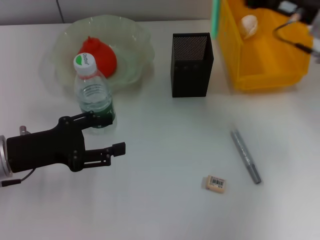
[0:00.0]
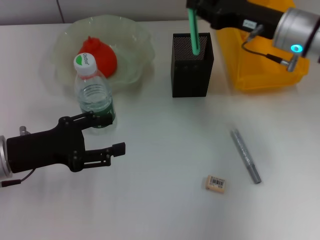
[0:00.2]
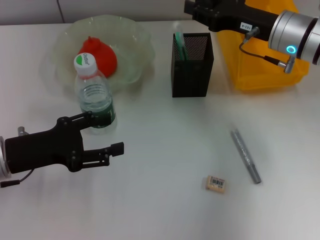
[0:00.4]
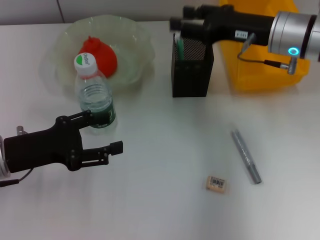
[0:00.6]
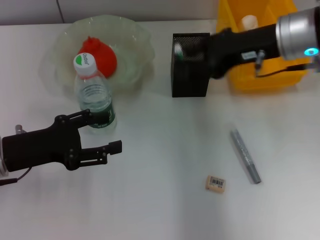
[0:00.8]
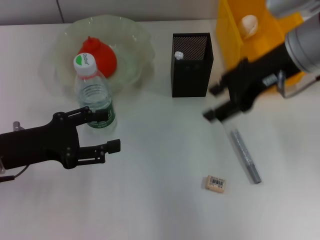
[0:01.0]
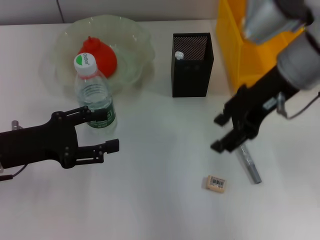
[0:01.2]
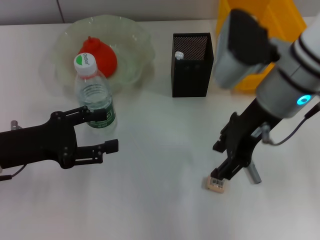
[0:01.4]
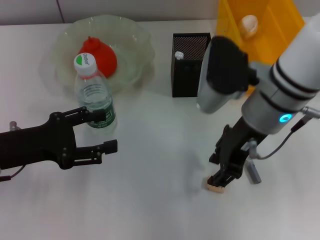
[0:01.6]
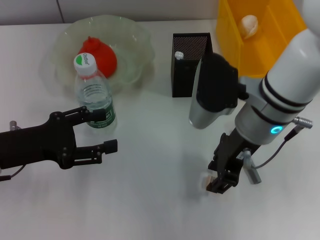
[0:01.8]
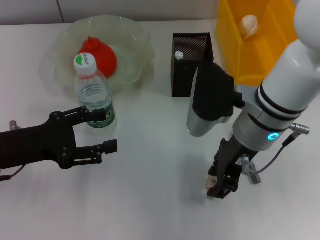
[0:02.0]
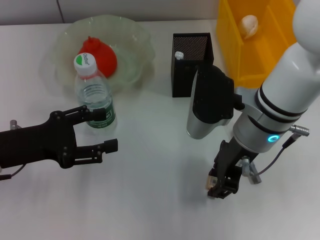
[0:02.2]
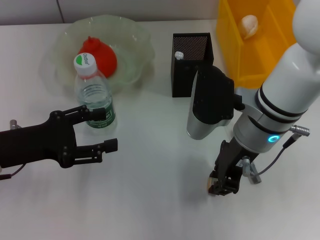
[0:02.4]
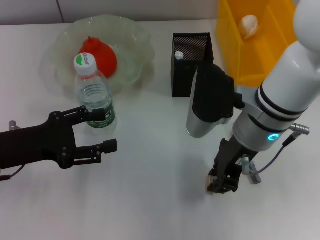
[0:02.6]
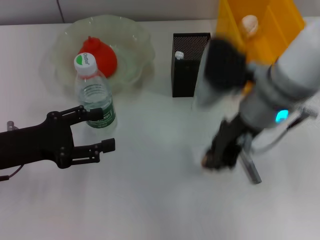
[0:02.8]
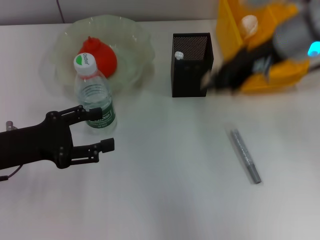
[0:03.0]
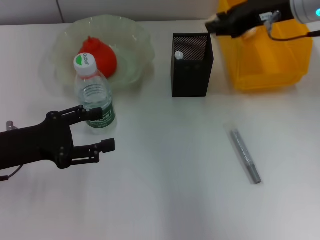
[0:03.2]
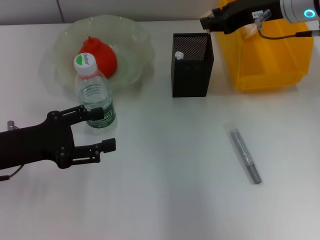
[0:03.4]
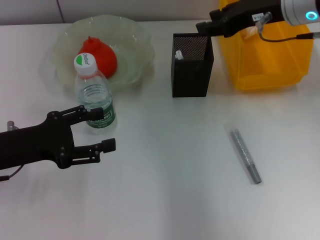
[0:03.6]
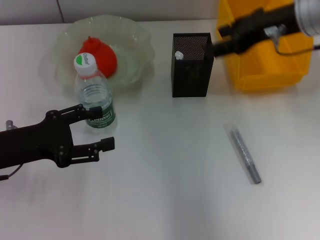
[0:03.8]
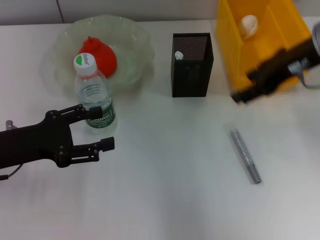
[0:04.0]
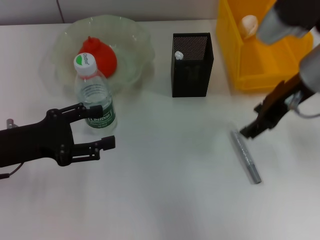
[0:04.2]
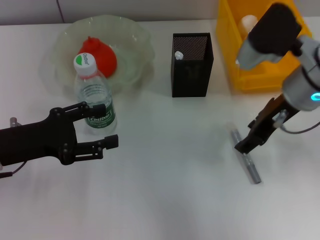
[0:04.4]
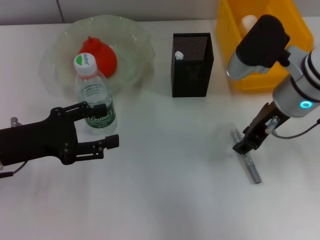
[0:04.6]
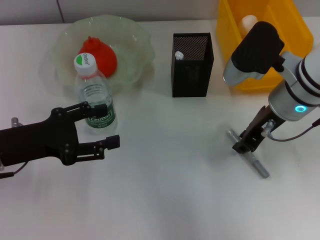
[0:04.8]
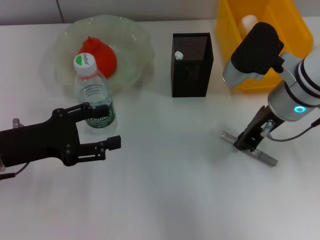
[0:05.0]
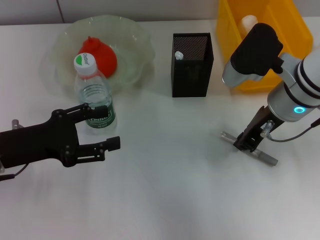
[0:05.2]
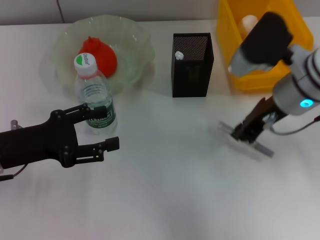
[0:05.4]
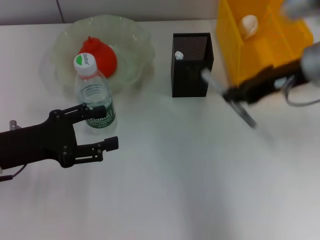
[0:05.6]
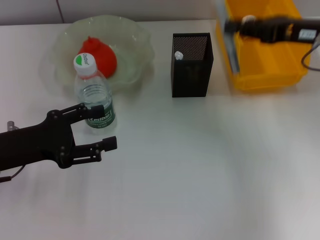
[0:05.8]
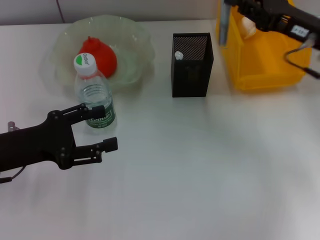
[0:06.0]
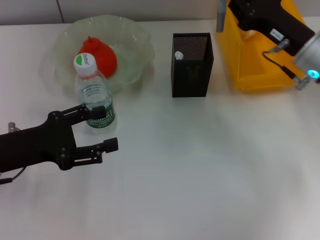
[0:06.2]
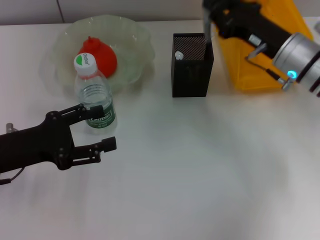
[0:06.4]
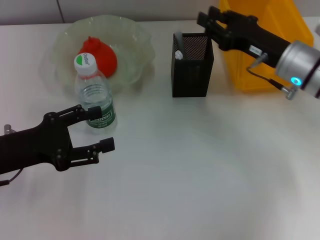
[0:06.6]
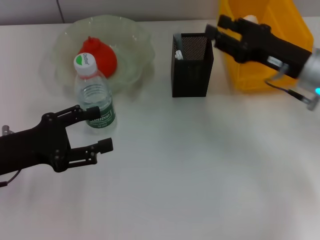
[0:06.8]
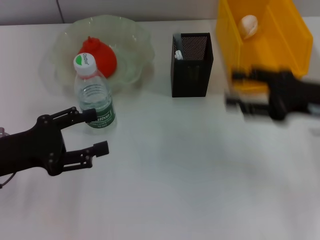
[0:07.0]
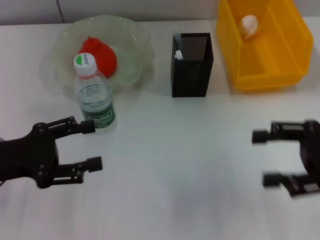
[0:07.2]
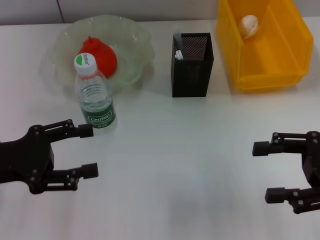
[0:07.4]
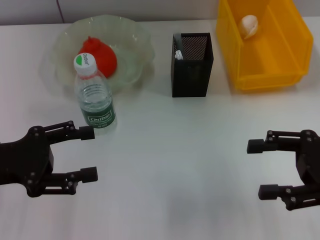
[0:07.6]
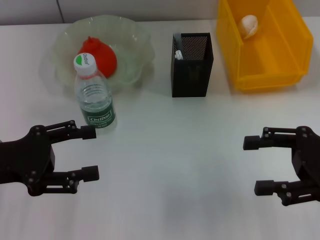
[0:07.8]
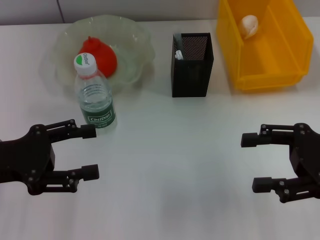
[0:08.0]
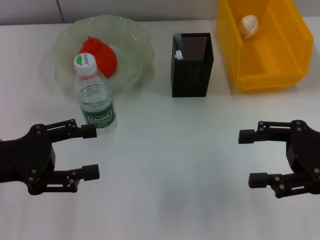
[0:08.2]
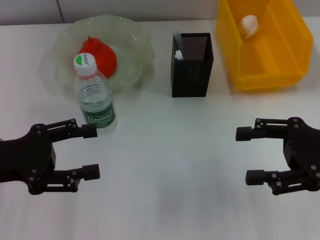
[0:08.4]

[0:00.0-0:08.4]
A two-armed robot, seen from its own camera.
Step, 0:00.6 to 0:02.0: Grab the eraser with the right hand.
Step, 0:02.4 to 0:03.4: Put the eraser into the pen holder with the right hand.
Step, 0:03.6 to 0:05.0: Grab the gray glue with the right hand.
Step, 0:05.2 to 0:06.4: Place the gray glue into the pen holder with the right hand.
0:00.0 to 0:01.4: The right gripper goes approximately 10 cm to the left and backward, and opens its fingers.
0:01.4 to 0:02.8: The right gripper closes up.
0:02.8 to 0:04.2: The right gripper moves to the right, approximately 5 cm, moves some 10 cm forward and comes back, and opens up.
0:04.2 to 0:05.6: The right gripper closes.
0:05.6 to 0:07.0: The right gripper is displaced to the right, downward and backward by about 10 cm, and opens its fingers.
0:07.0 to 0:08.4: The grippers move only a little.

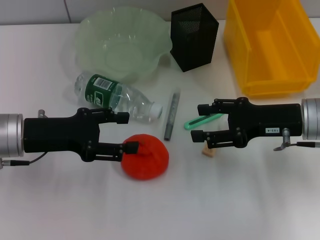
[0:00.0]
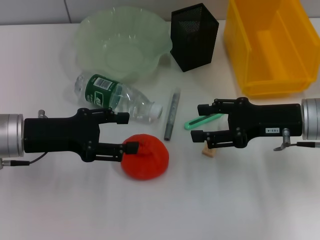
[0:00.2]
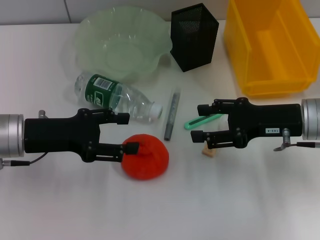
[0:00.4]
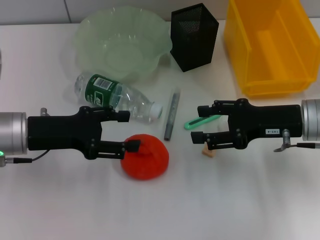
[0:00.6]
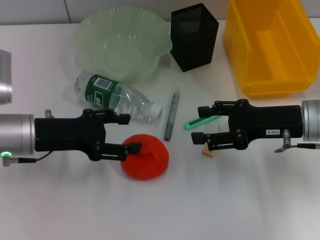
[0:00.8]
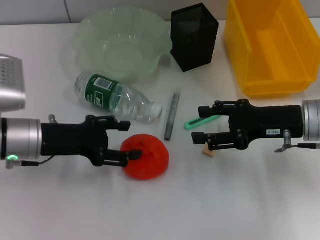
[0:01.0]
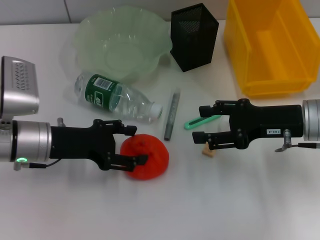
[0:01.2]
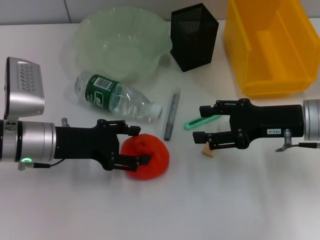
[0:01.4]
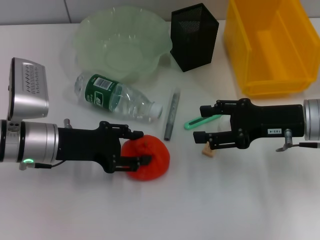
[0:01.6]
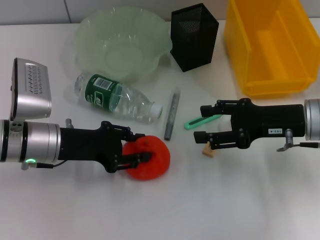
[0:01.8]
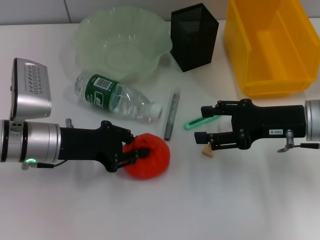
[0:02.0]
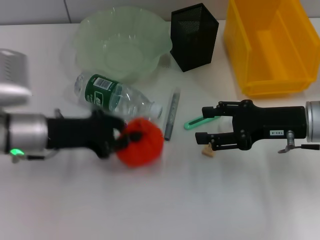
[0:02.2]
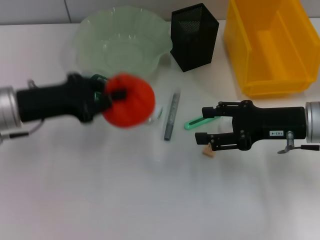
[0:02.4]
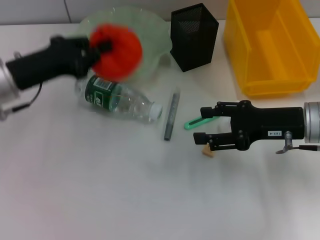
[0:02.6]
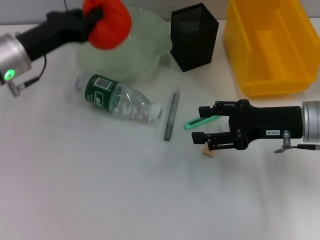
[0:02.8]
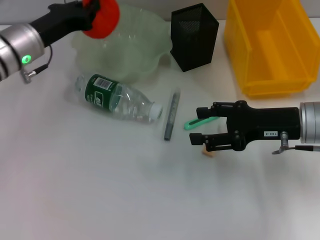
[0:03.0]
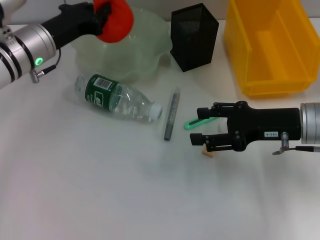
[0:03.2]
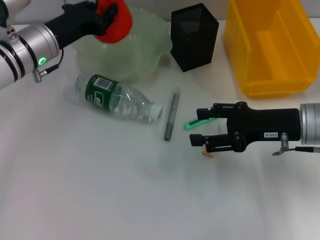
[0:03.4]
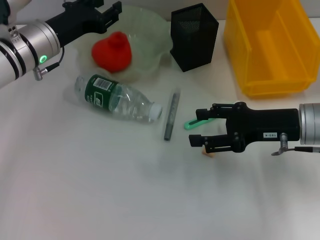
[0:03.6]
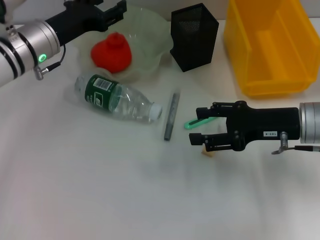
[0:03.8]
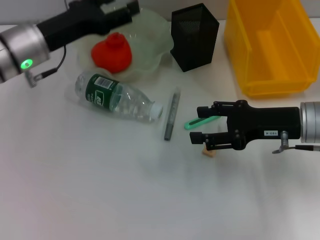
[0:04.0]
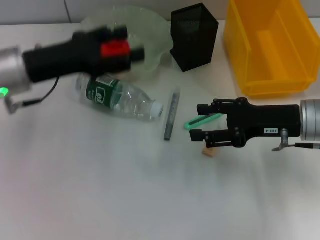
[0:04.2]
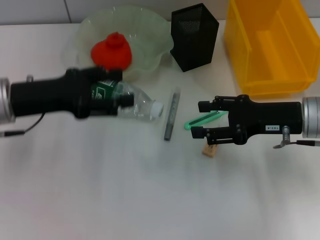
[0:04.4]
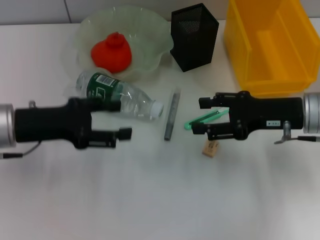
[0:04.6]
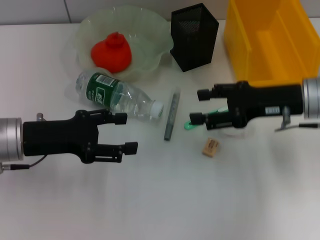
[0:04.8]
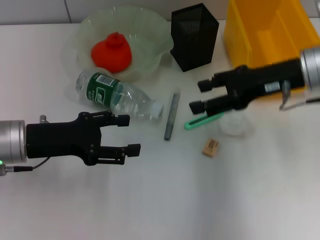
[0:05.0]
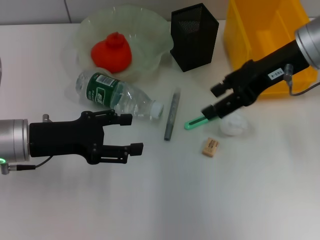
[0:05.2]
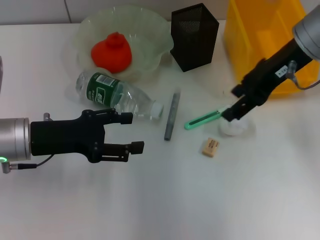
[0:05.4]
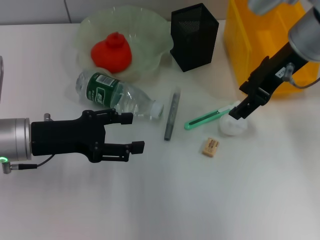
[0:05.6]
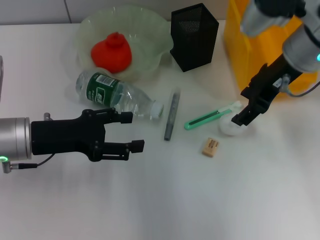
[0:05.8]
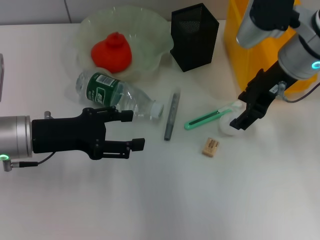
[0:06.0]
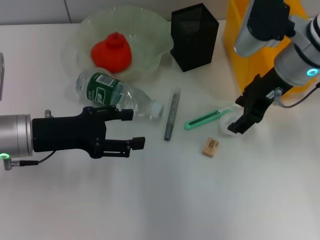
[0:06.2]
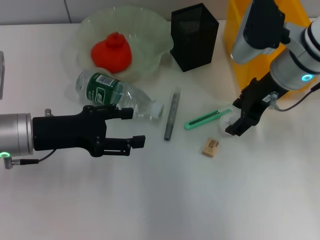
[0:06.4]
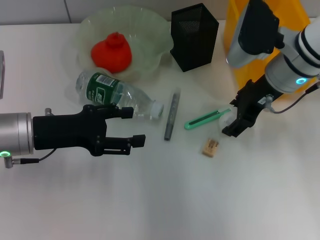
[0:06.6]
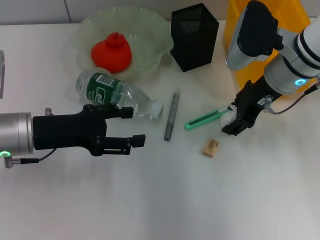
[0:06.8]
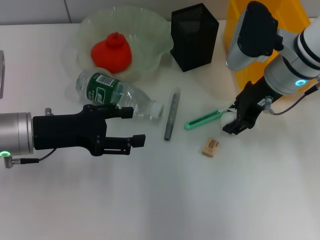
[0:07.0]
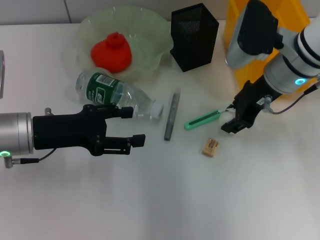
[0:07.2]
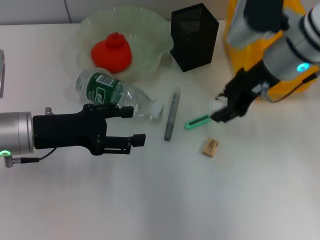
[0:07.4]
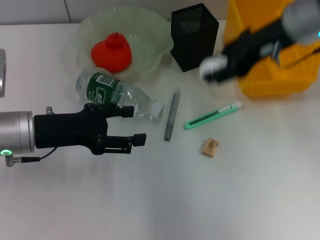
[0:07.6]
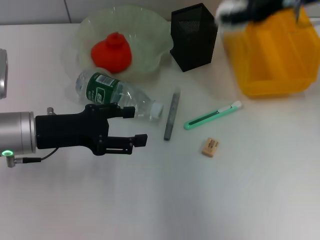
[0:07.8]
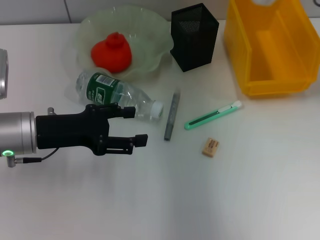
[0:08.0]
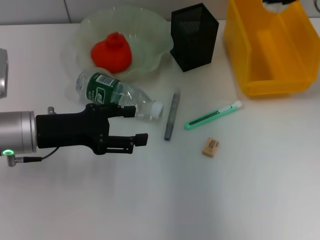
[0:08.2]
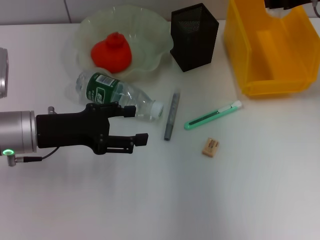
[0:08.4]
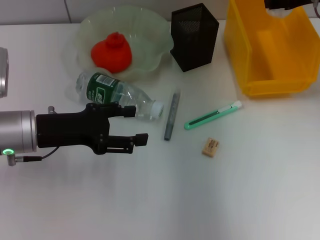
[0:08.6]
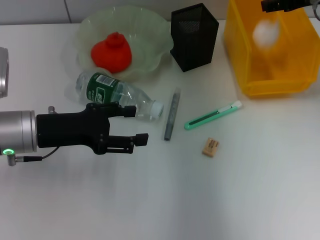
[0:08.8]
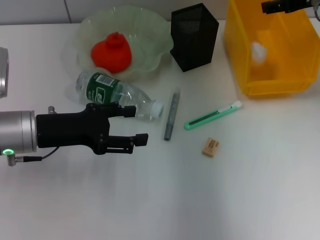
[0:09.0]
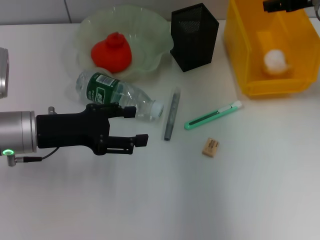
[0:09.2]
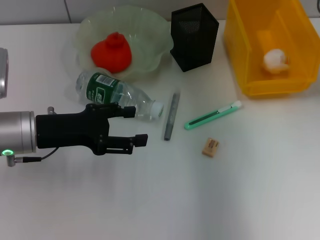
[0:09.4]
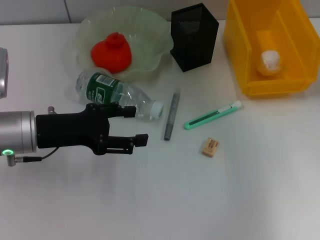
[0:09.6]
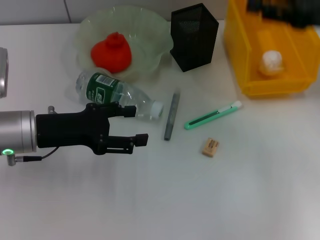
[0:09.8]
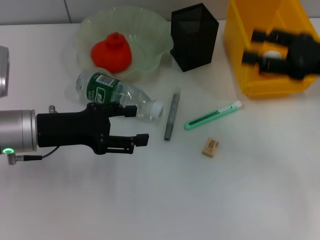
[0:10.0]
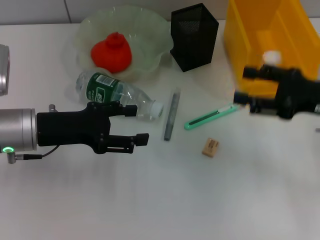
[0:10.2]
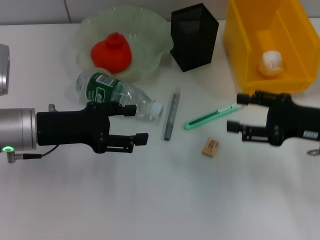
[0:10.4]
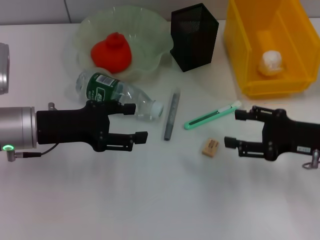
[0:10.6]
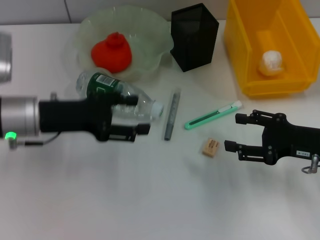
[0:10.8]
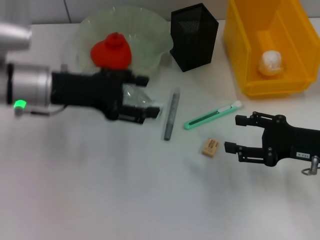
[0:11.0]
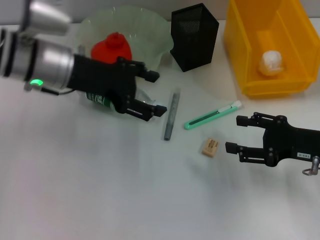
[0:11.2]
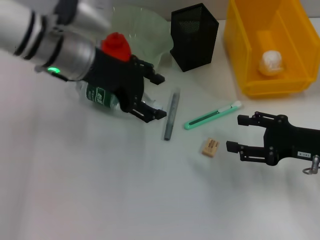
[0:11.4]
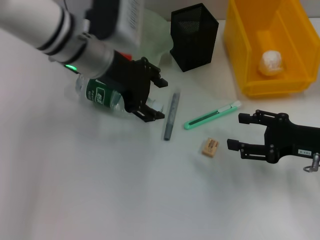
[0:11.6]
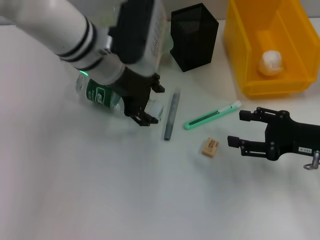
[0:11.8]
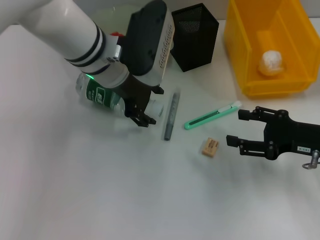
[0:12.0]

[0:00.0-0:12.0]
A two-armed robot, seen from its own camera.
Step, 0:00.0 to 0:01.8: Grab the orange with the left hand.
Step, 0:02.0 to 0:03.4: Place the orange into the fruit bowl with the left hand.
Step, 0:03.6 to 0:07.2: Grab the paper ball with the right hand.
Step, 0:07.4 to 0:08.8: Place the paper ball into the trash can with the right hand.
0:00.0 to 0:01.6: The grippers make only small movements.
0:01.6 to 0:03.0: The left gripper heads forward, covering about 10 cm, and closes.
0:03.0 to 0:04.4: The left gripper heads backward, covering some 10 cm, and opens up.
0:04.4 to 0:06.0: The right gripper moves upward, forward and to the left, some 15 cm; the left gripper moves roughly 5 cm.
0:06.0 to 0:07.6: The right gripper closes its fingers.
0:07.6 to 0:09.0: The right gripper heads to the right, covering some 10 cm, and opens up.
0:09.0 to 0:10.4: The right gripper is displaced backward and downward by roughly 20 cm.
0:10.4 to 0:12.0: The left gripper travels to the right, forward and upward by roughly 20 cm.

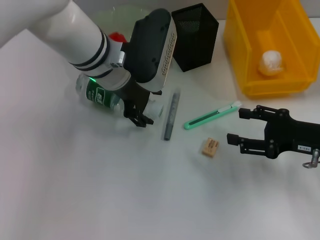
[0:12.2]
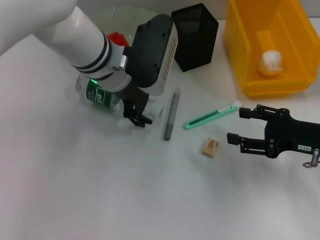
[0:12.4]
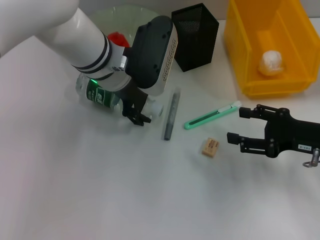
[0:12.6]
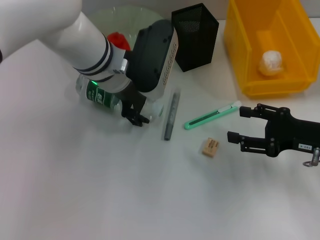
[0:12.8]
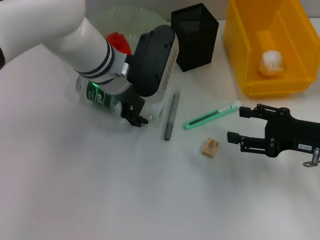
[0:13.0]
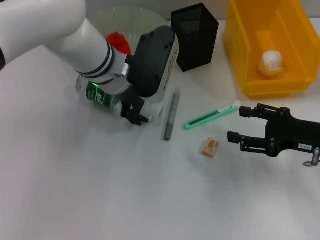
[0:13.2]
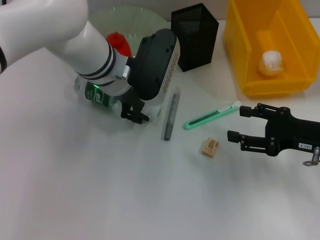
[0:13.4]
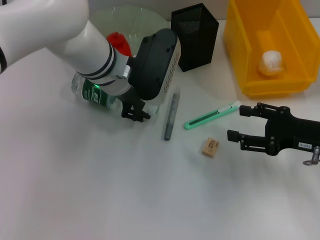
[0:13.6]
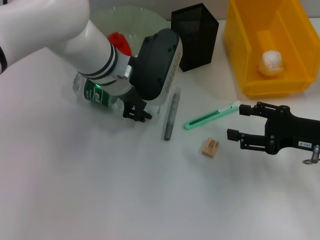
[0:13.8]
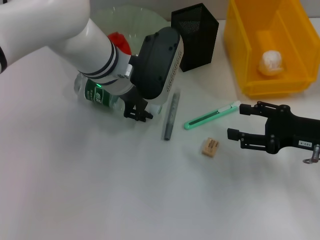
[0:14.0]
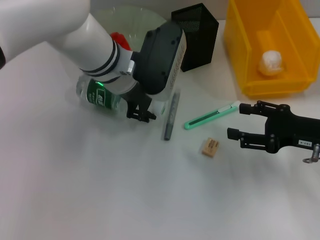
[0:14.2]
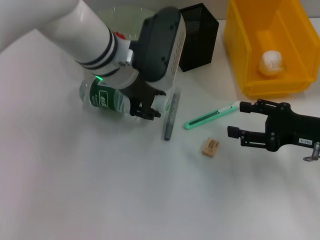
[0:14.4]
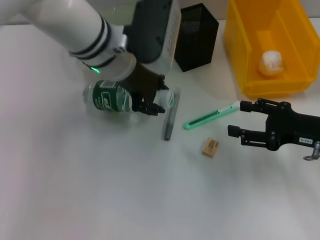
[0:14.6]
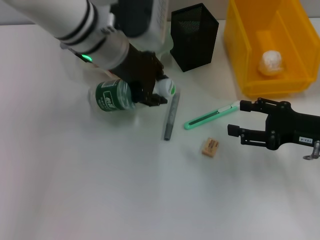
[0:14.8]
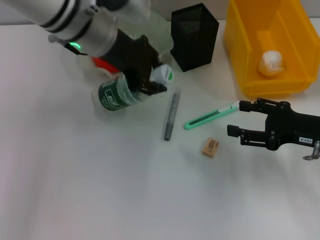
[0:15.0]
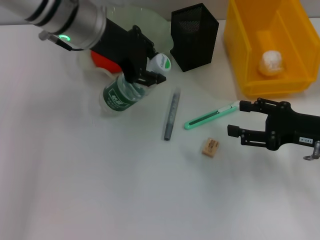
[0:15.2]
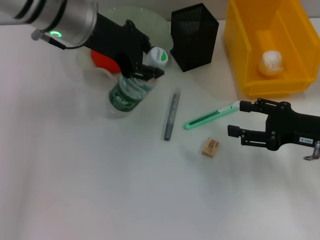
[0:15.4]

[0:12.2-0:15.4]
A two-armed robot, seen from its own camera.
0:12.2 to 0:13.8: The left gripper closes.
0:13.8 to 0:15.4: The left gripper travels upward and to the left by about 10 cm.
